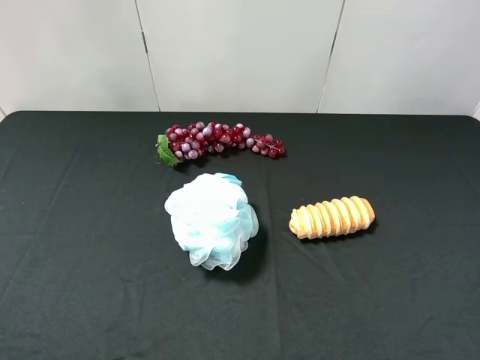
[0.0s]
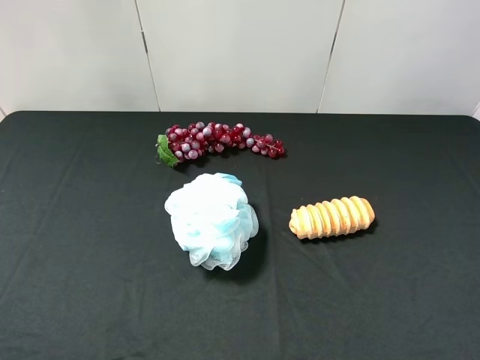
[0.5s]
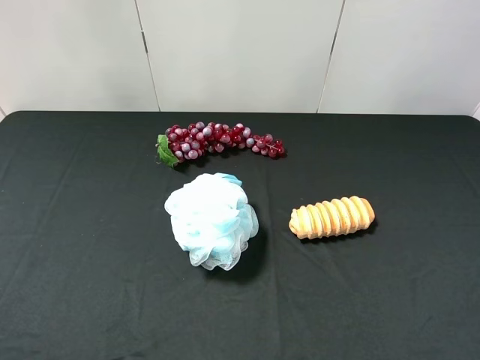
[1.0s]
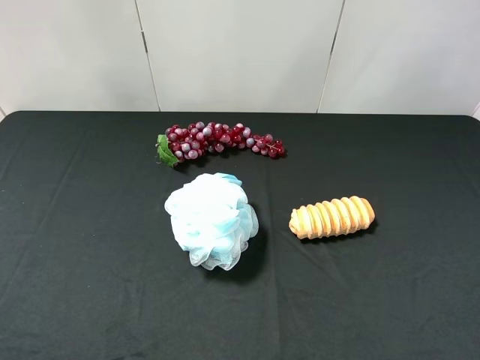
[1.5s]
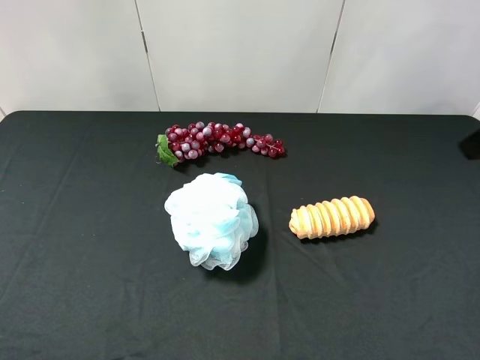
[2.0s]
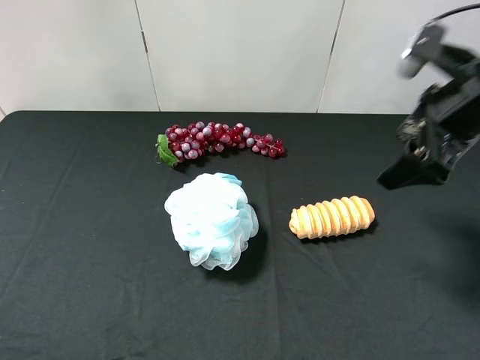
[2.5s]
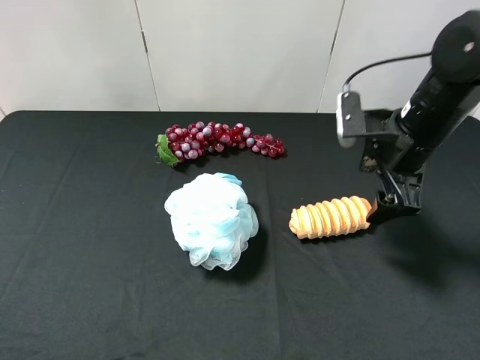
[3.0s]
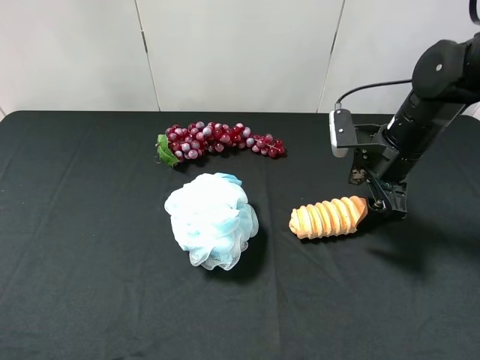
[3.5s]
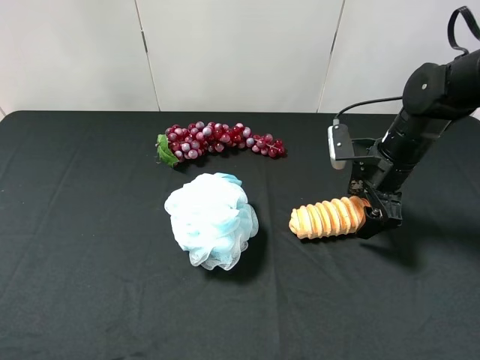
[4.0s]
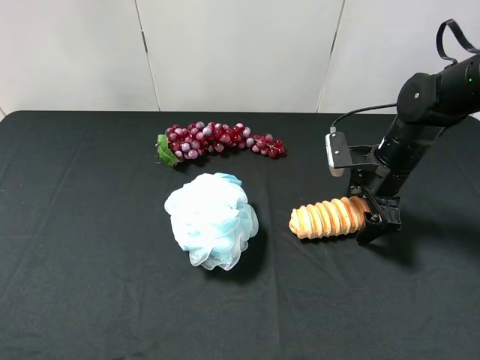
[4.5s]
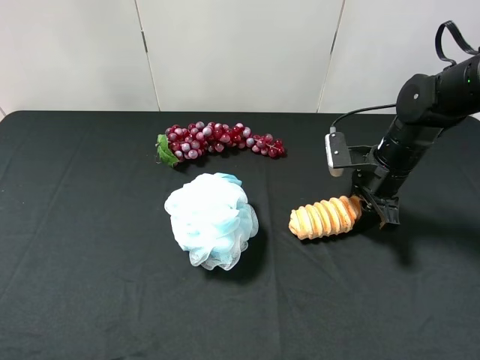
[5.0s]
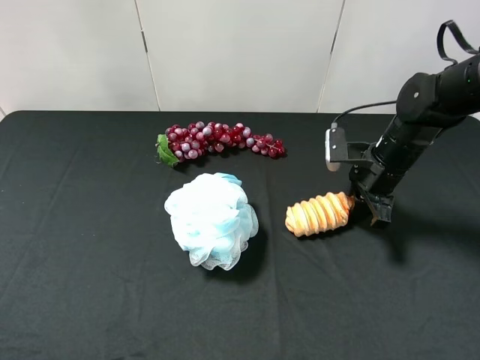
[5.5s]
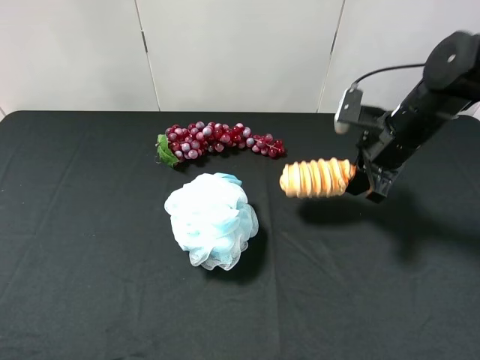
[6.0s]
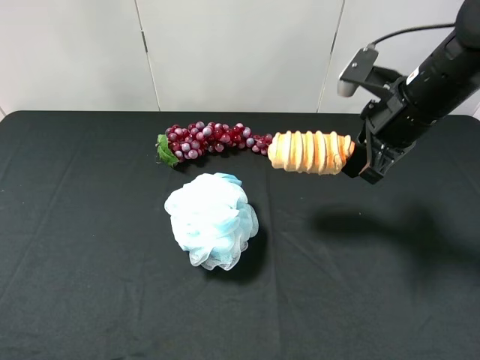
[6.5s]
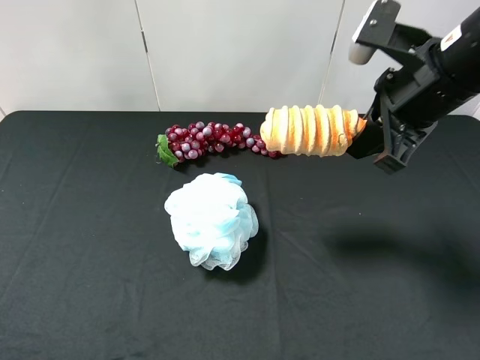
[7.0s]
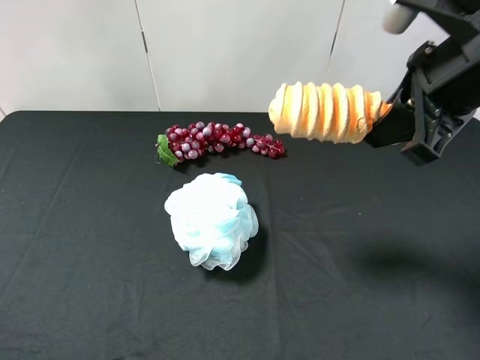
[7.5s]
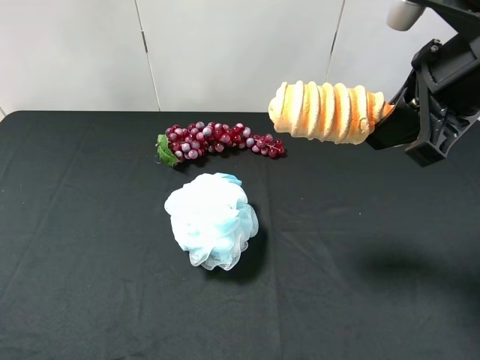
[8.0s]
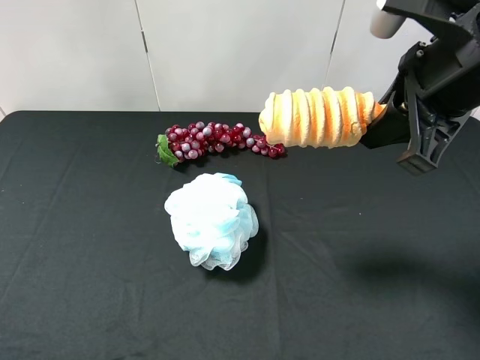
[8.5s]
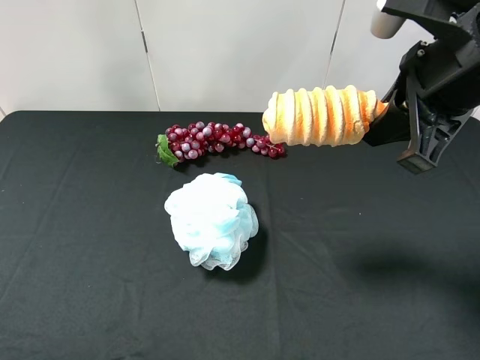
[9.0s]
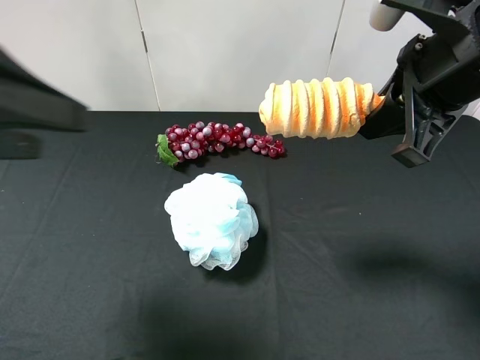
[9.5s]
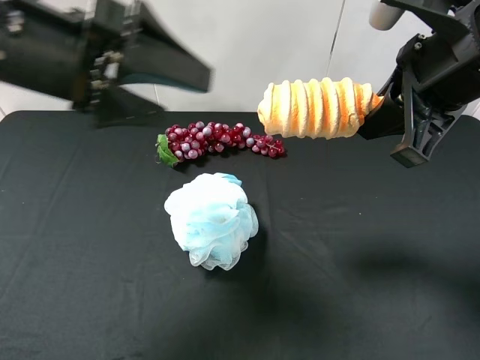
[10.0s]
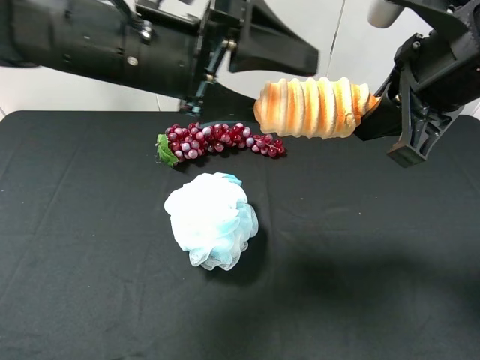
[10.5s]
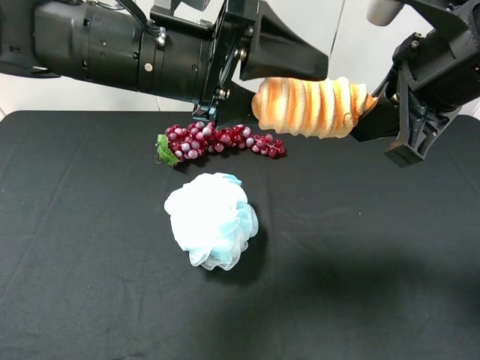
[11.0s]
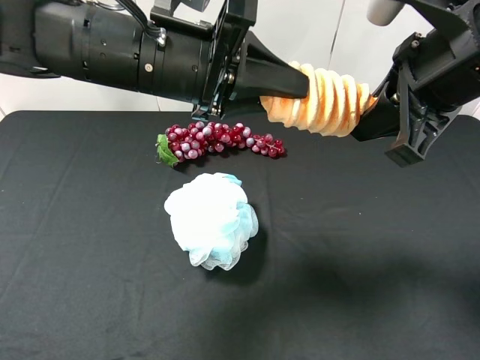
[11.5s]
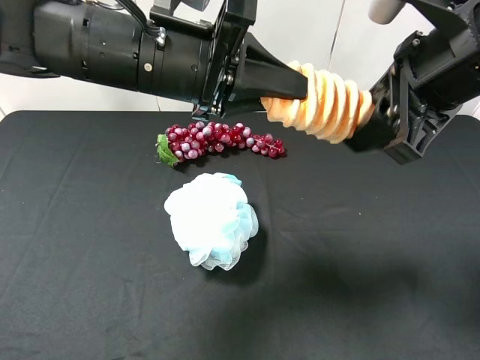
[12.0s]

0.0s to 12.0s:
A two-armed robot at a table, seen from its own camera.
Task of the whole recording: use the right gripper to pick up the item and transfer it from the right gripper to the left gripper.
Step, 0.0s to 5.5s: Use the right gripper to grab the bread on the right side of the table.
2.0s to 4.0s: The right gripper shifts approximately 25 cm downward and forward.
4.0s to 6.0s: The right gripper goes roughly 5 cm upward, and closes up.
6.0s to 8.0s: The right gripper travels upward and backward by about 20 cm.
8.0s to 10.0s: The left gripper heads forward and to the right, covering some 30 cm.
10.0s to 12.0s: The right gripper opens its fingers, while the left gripper moves to the right, some 10 cm, and closes its fingers.

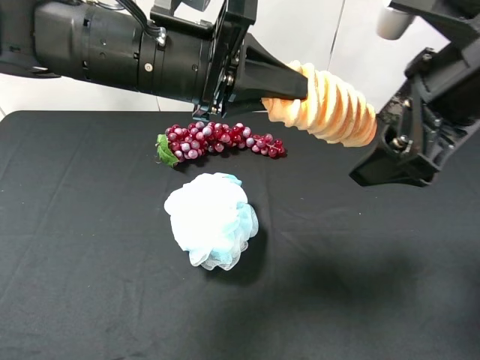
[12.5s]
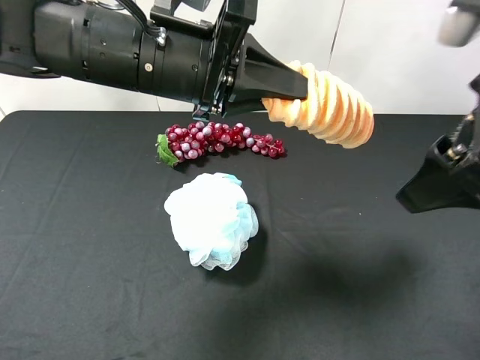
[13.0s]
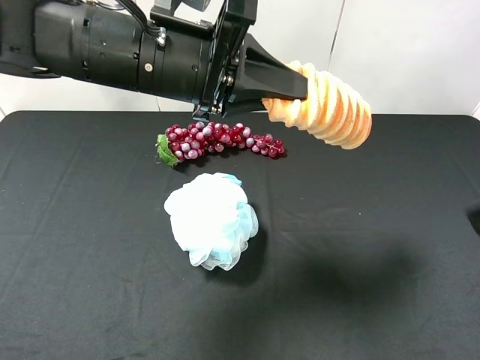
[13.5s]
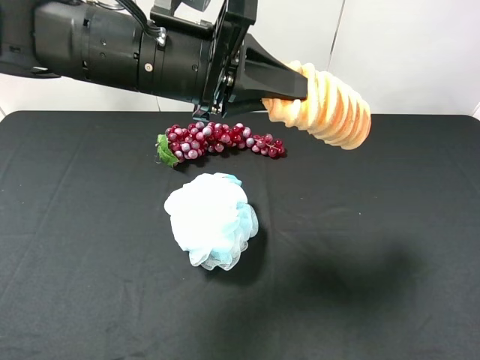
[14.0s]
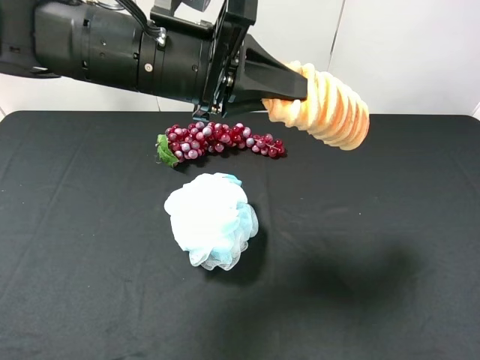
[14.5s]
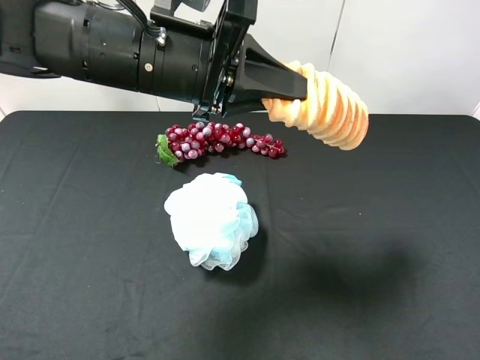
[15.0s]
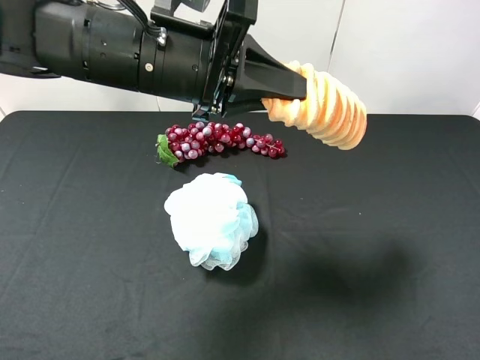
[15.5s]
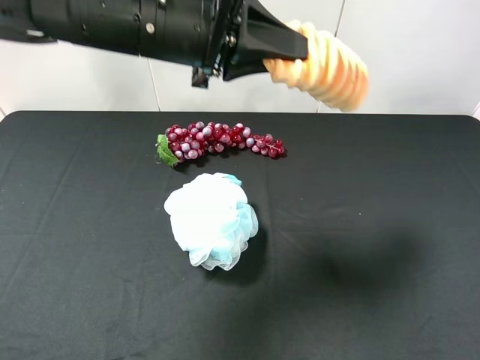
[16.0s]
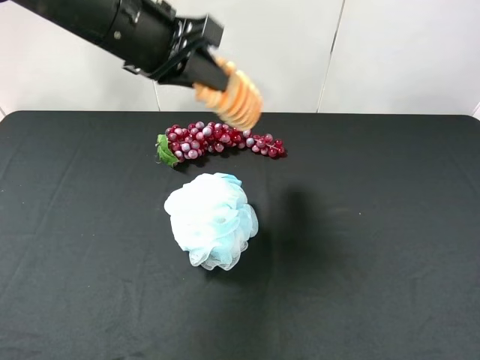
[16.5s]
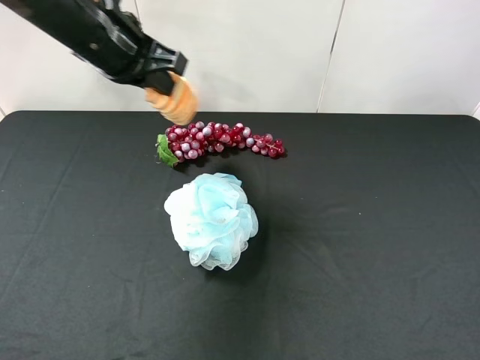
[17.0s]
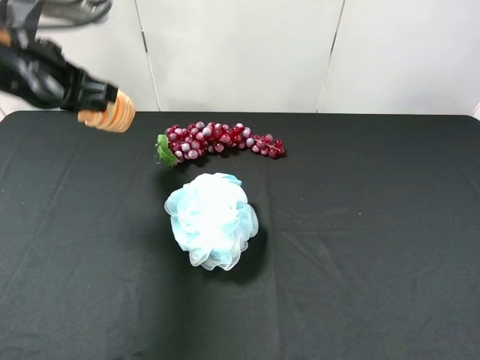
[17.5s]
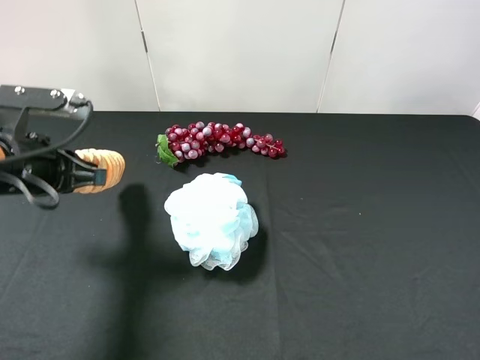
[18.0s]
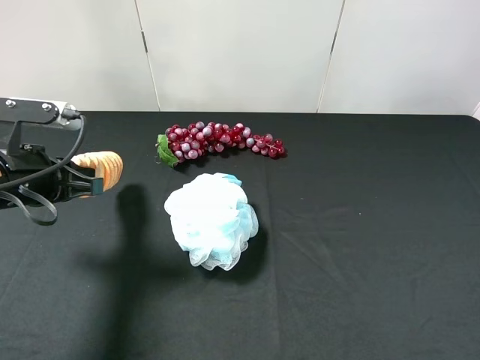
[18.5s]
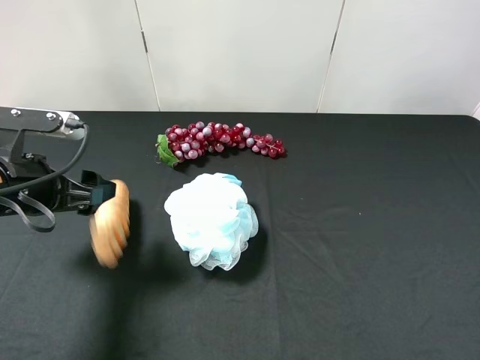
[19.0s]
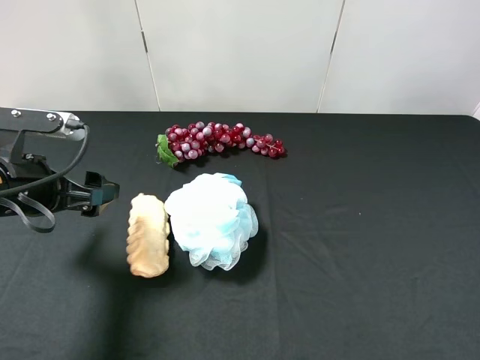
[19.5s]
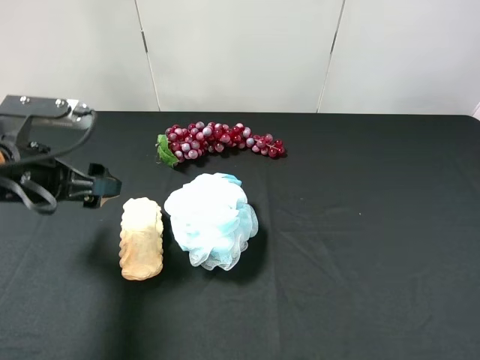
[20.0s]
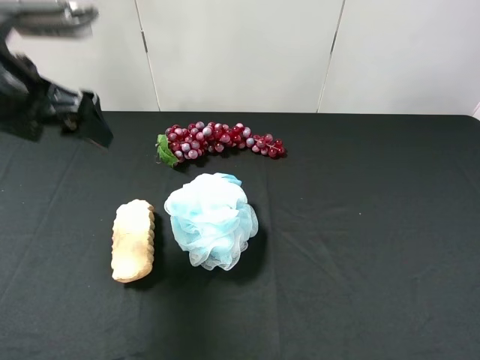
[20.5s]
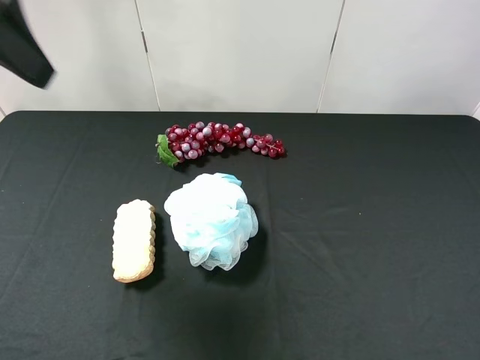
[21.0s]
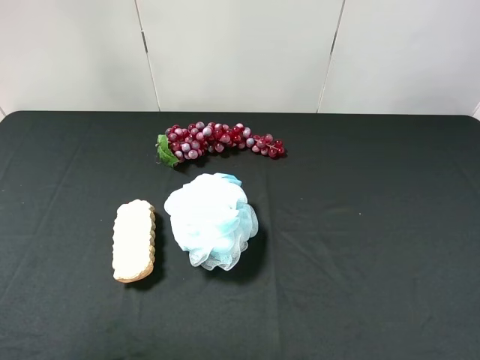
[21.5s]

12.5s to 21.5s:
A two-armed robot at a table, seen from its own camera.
Task of the whole recording: use the right gripper to pick up the item and transfer it from the right gripper to the left gripper.
Step, 12.5s to 19.0s: The left gripper places bread on the left side of the table.
12.5s to 14.5s: The right gripper is displaced backward and to the right by some 20 cm.
14.5s to 17.0s: The left gripper travels to the left and forward by roughly 10 cm.
17.0s to 19.5s: The left gripper shifts roughly 20 cm downward, backward and to the left, and opens up.
19.5s to 21.5s: The left gripper heads upward, covering about 25 cm.

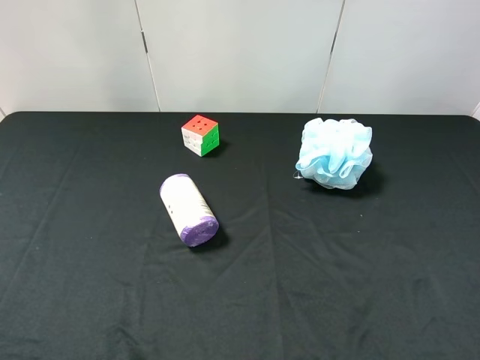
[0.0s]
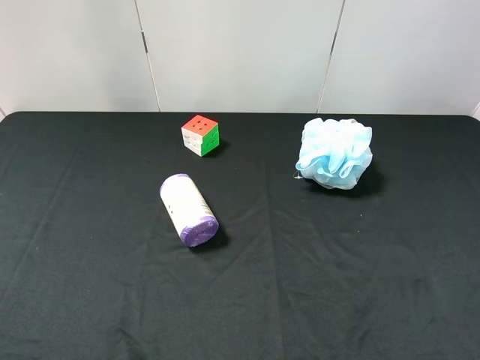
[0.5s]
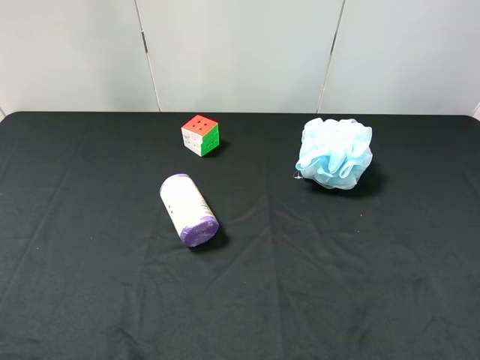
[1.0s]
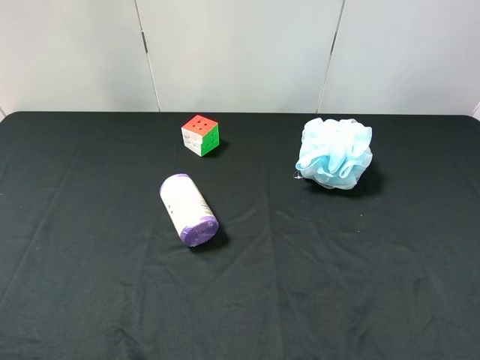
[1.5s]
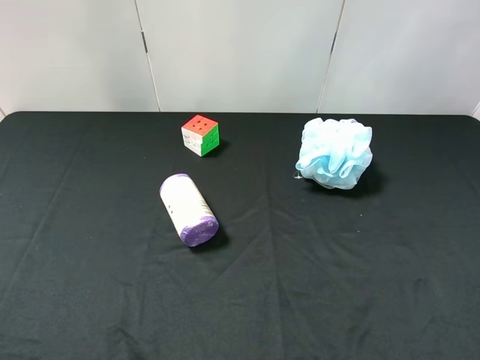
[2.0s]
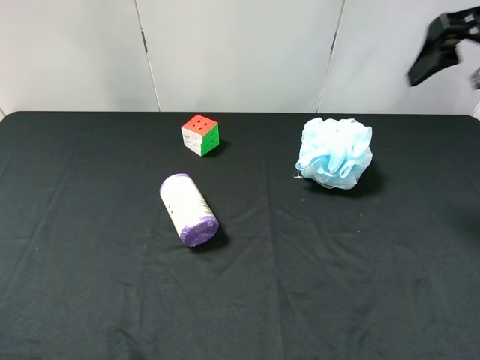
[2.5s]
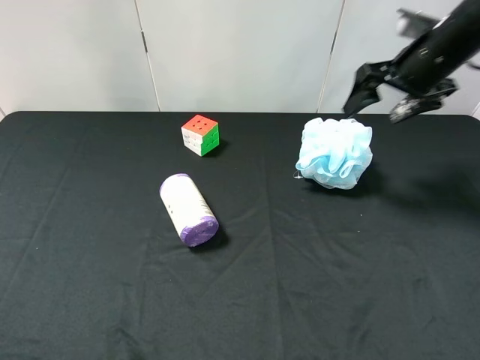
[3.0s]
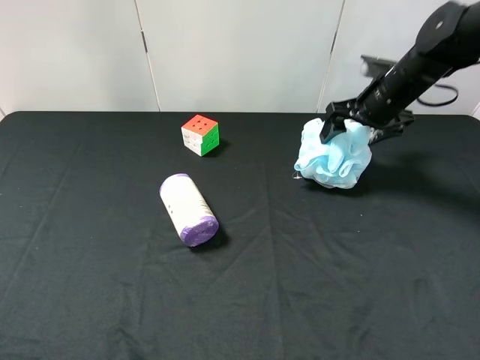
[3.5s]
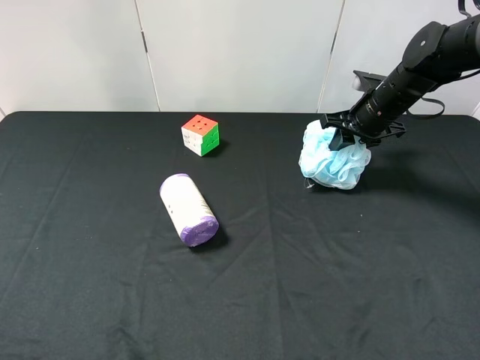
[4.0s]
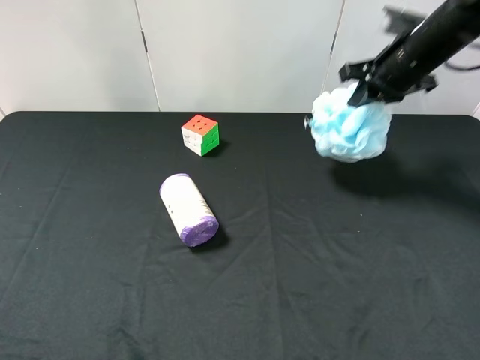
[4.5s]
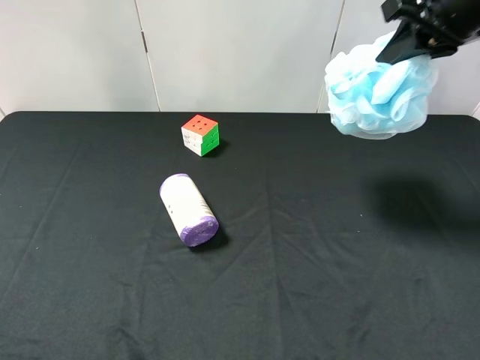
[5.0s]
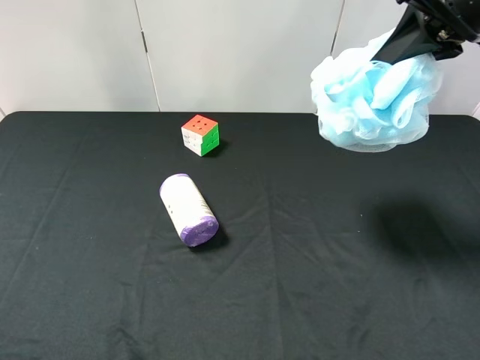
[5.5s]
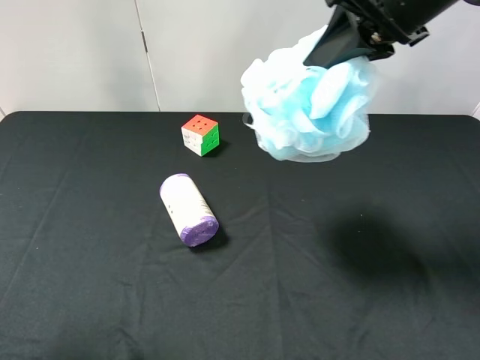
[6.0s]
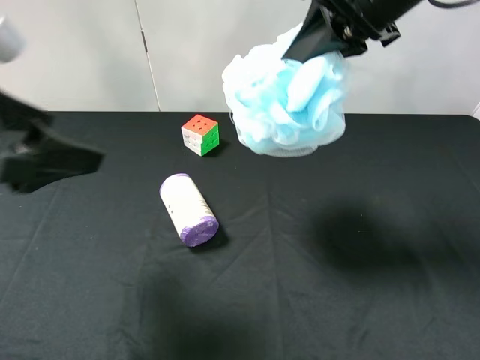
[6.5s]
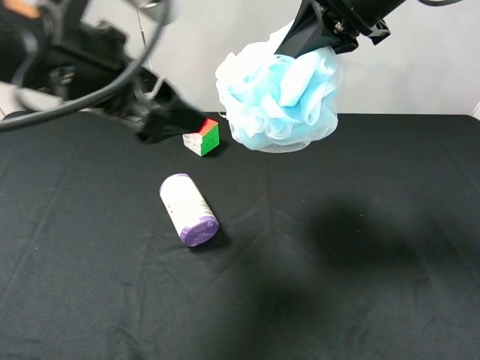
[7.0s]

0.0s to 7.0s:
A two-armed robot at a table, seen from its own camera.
Task of the whole recording: use the right gripper to pick up the item and transfer it from the right gripper to the left gripper.
Step, 0.0s to 4.0s: Use the right gripper to grab the shower sphere on the right side of the table.
2.0s to 3.5s: The right gripper goes about 30 cm forward and downward.
3.5s to 5.0s: The right gripper heads upward and backward, covering roughly 20 cm, and closes its fingers.
5.0s to 7.0s: The left gripper shifts approximately 30 cm forward and to the right, while the right gripper travels to the left by about 10 cm.
